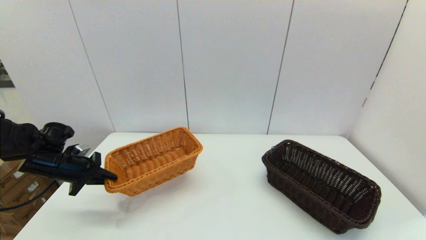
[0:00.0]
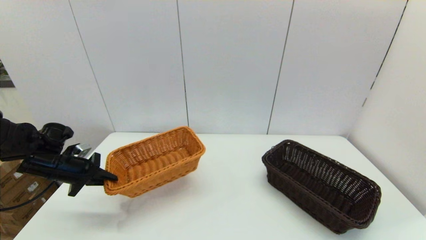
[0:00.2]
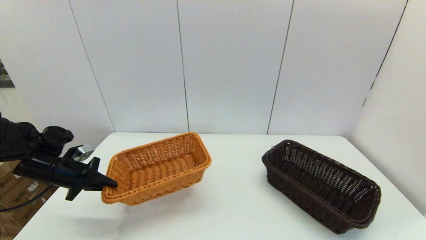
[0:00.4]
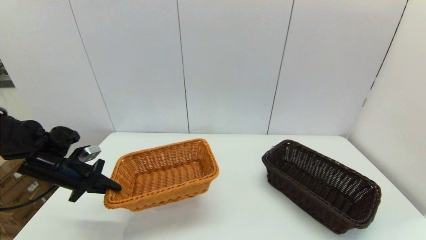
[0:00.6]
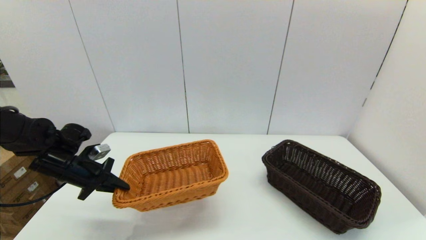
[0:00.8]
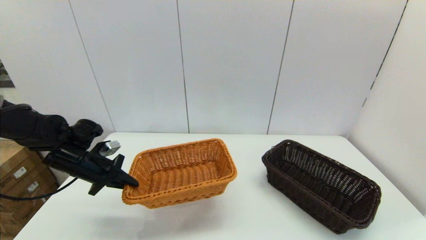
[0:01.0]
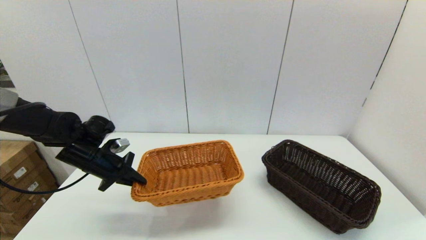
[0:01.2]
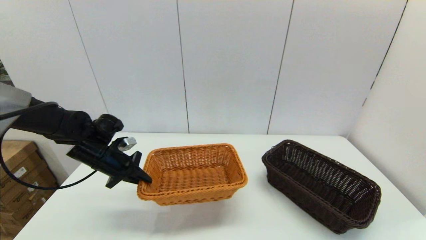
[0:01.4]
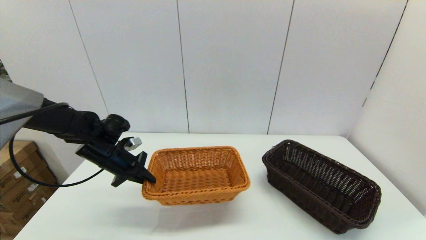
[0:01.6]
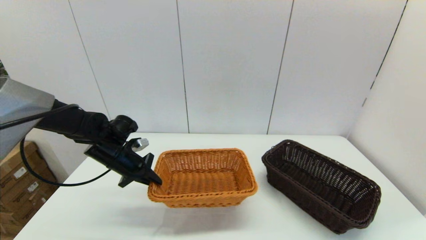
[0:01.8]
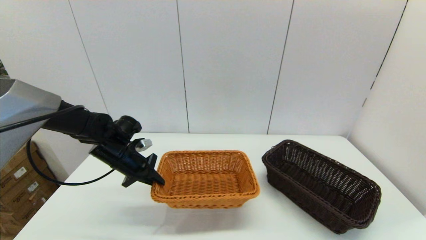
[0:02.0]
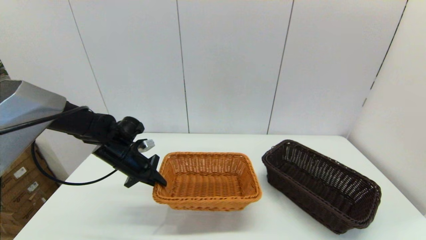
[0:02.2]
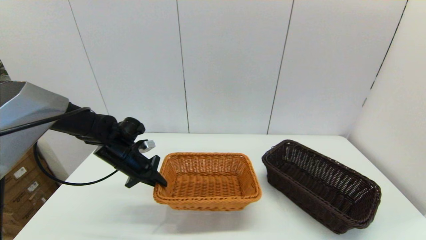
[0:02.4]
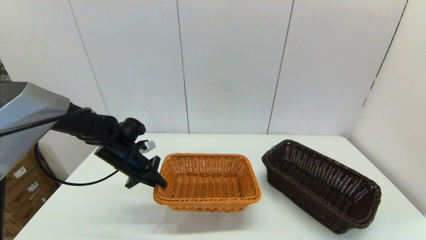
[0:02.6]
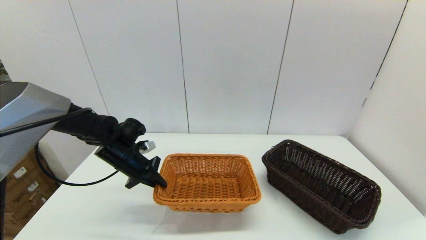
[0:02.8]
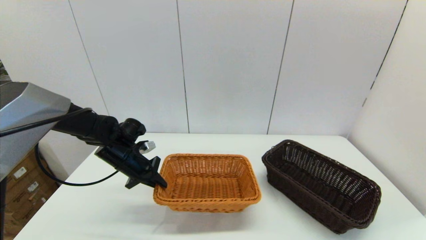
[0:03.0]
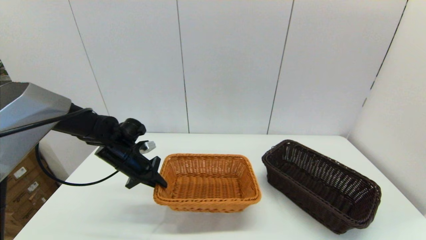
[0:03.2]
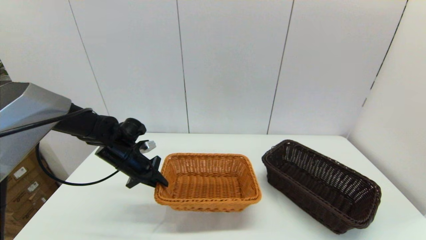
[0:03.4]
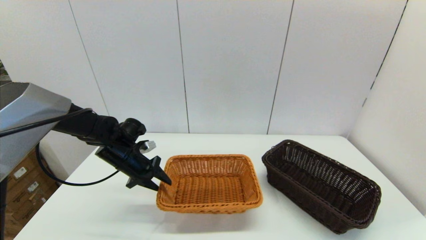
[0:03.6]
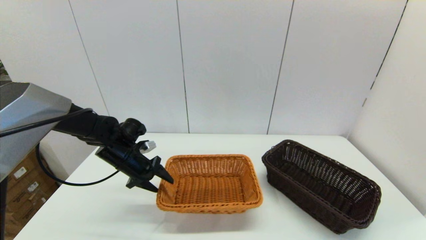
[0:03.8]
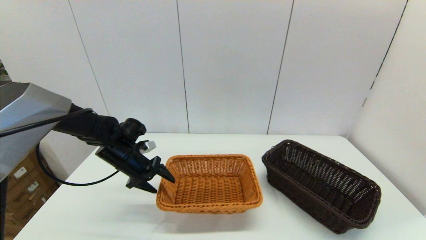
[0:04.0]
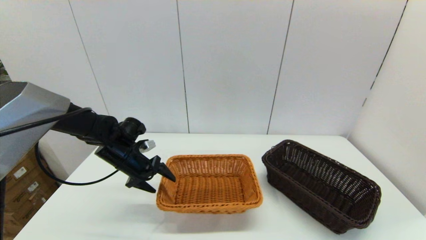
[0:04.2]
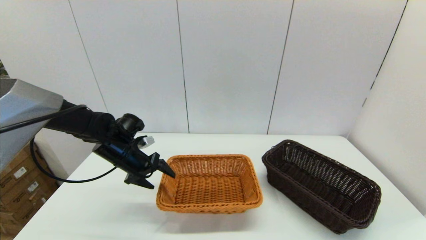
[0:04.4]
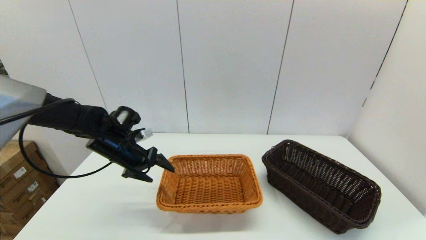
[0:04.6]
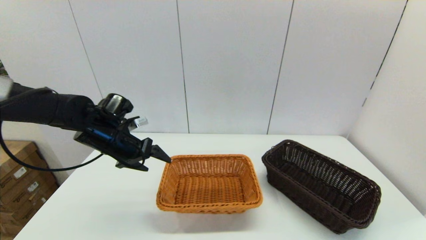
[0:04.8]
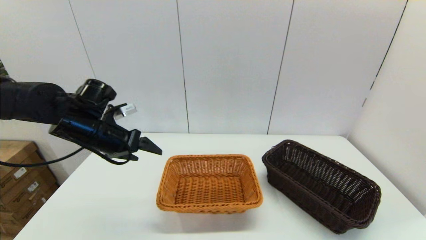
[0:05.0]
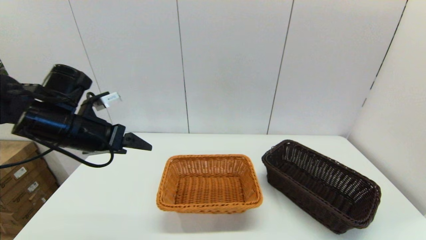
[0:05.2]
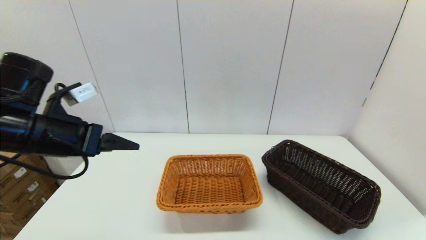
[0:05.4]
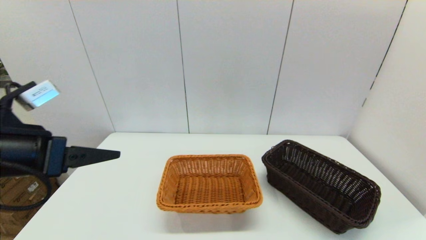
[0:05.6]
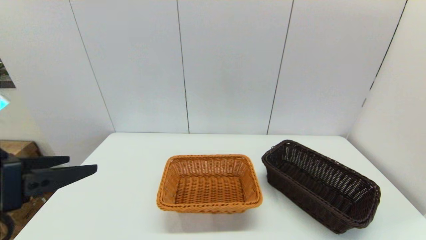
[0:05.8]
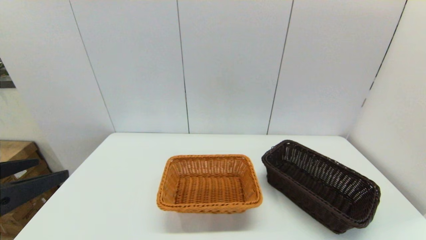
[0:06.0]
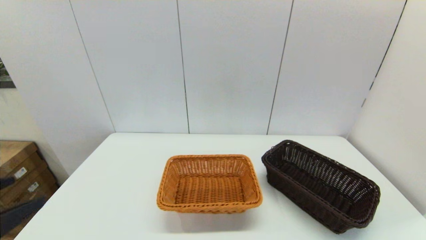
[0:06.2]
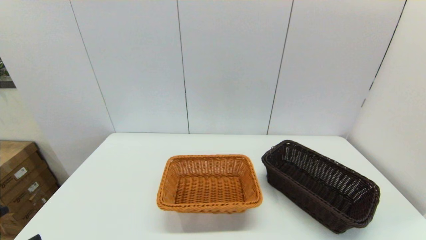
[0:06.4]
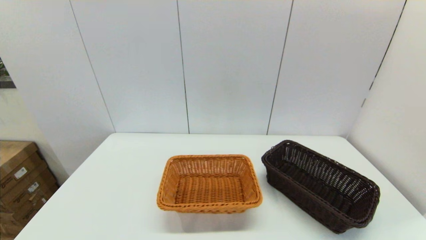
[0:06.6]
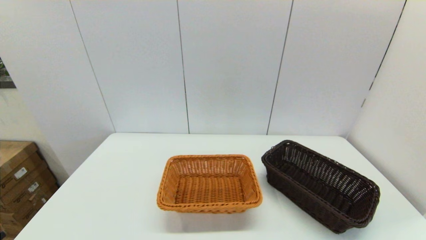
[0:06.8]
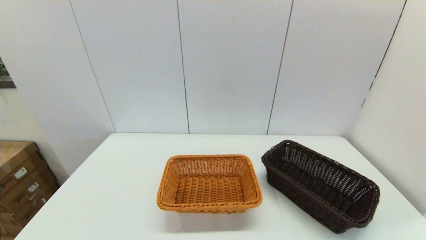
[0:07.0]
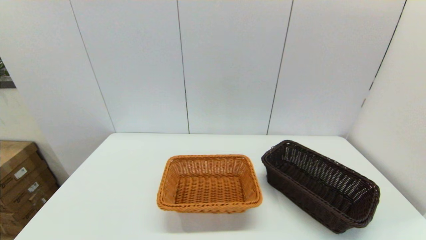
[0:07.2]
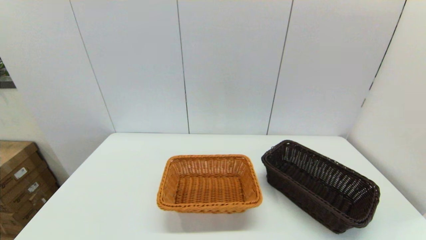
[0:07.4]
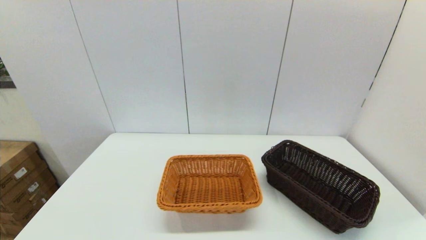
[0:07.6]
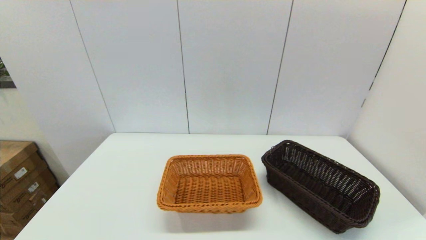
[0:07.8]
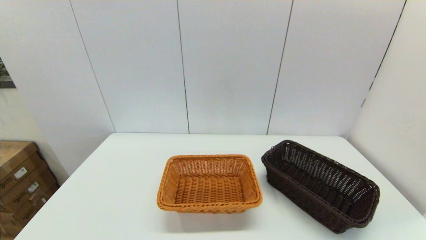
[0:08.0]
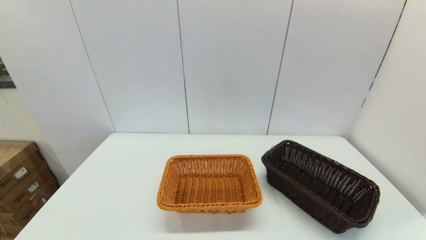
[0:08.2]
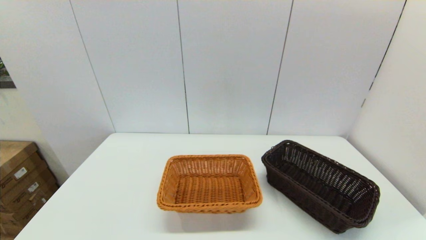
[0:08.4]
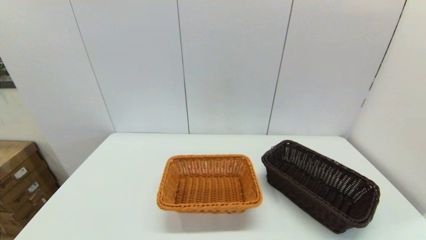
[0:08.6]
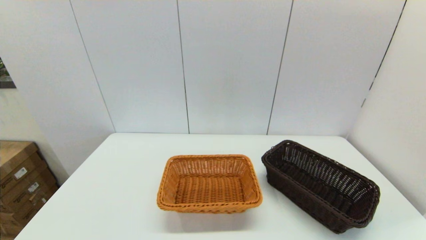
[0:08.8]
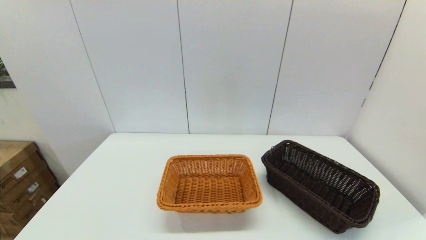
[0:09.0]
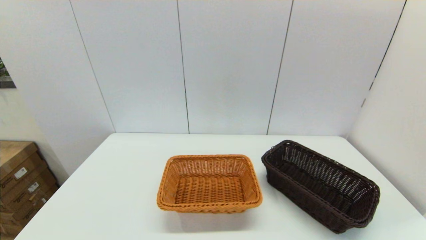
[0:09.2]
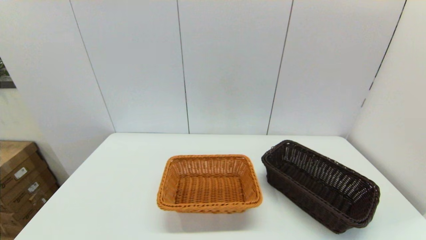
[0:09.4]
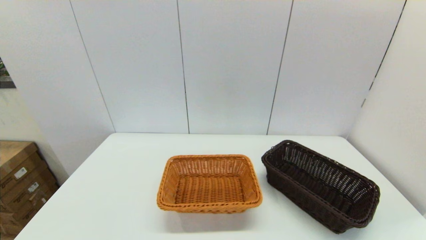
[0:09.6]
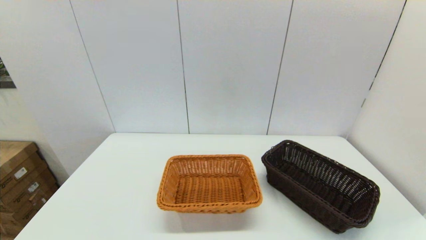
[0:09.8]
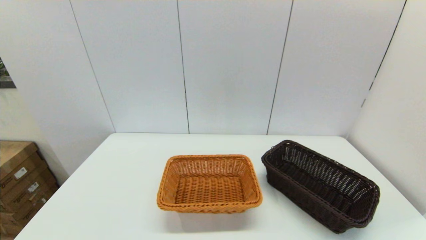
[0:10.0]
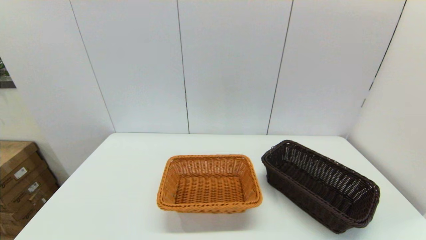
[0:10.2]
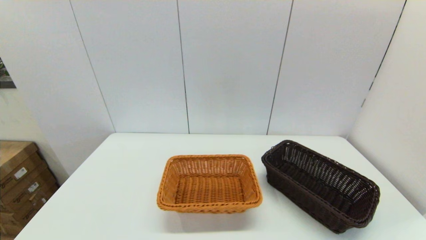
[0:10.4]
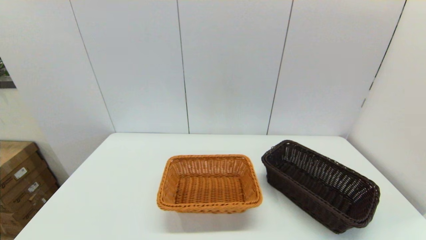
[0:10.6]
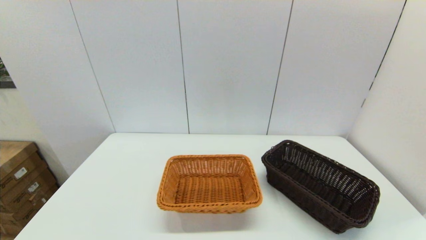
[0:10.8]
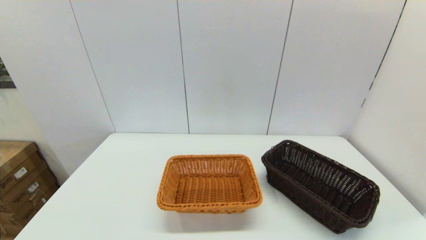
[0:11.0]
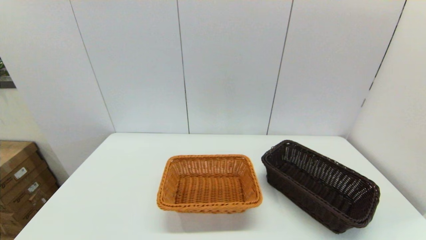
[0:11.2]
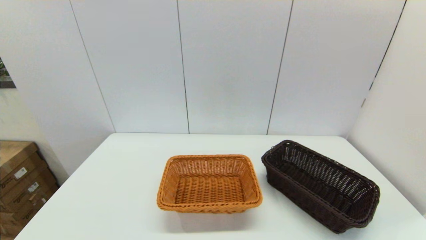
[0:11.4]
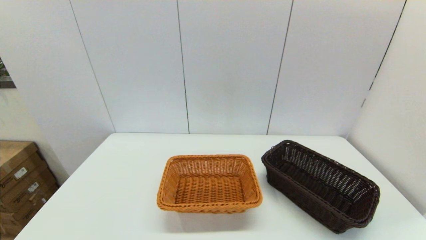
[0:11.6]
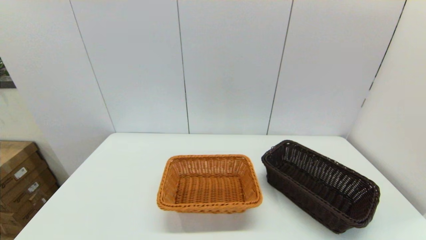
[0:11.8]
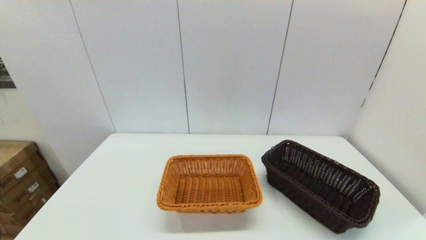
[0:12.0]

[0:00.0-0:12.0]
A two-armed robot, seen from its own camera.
Task of the whole recording: stack a basket on top of another basket.
Step, 0:00.0 to 0:05.6: Place the light basket on the middle of the table with the left gripper.
0:00.0 to 0:01.6: The left gripper is displaced to the right by about 10 cm.
0:01.6 to 0:03.0: There are only small adjustments of the grippers.
0:03.0 to 0:04.4: The left gripper opens.
0:04.4 to 0:06.0: The left gripper travels backward and upward by about 30 cm.
0:06.0 to 0:07.6: The left gripper heads downward and backward, covering roughly 20 cm.
0:07.6 to 0:09.0: The two grippers keep their place.
0:09.0 to 0:12.0: Neither gripper changes place.

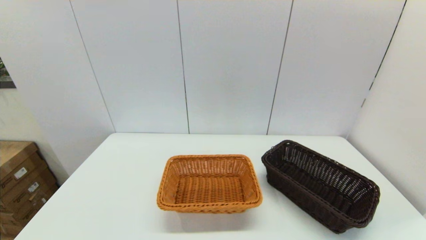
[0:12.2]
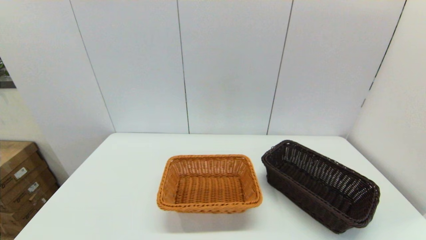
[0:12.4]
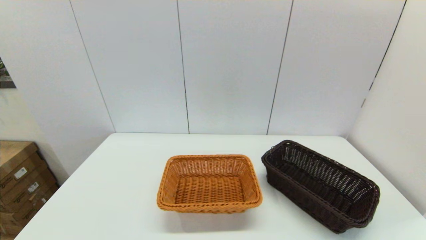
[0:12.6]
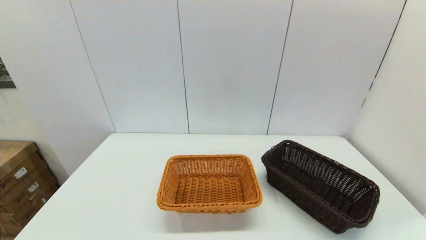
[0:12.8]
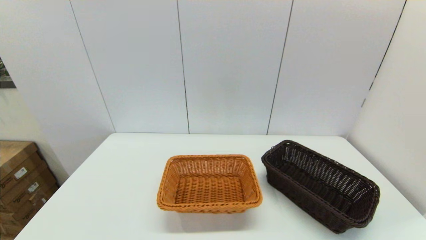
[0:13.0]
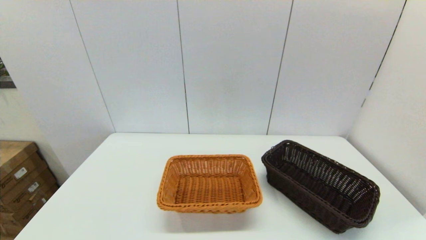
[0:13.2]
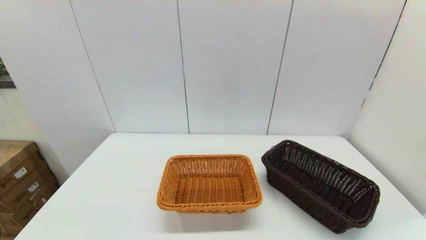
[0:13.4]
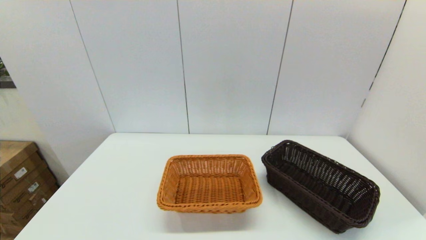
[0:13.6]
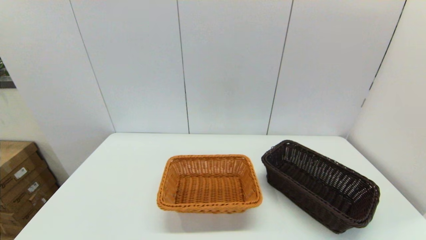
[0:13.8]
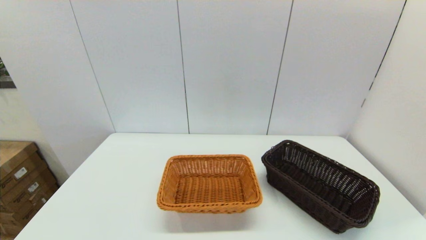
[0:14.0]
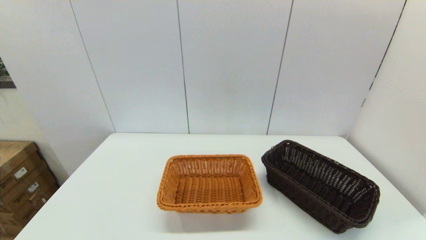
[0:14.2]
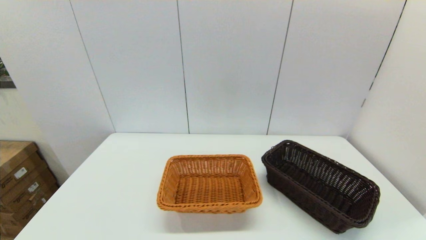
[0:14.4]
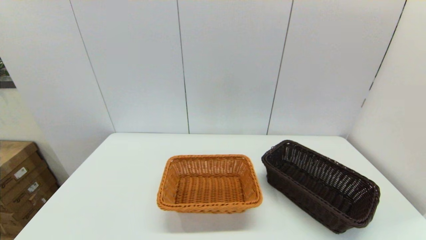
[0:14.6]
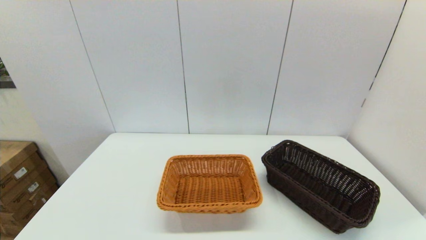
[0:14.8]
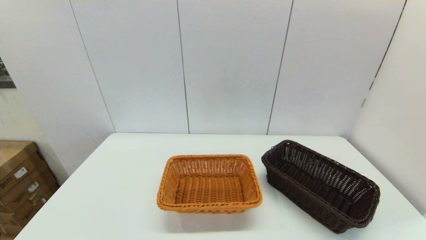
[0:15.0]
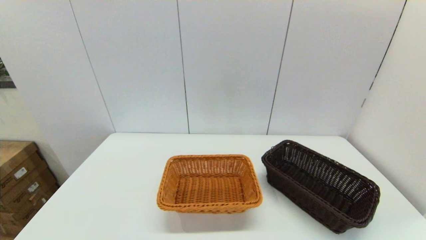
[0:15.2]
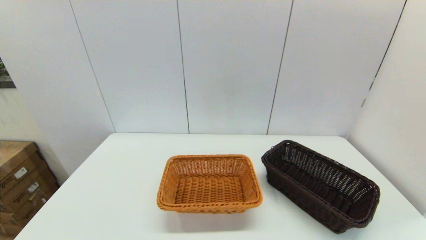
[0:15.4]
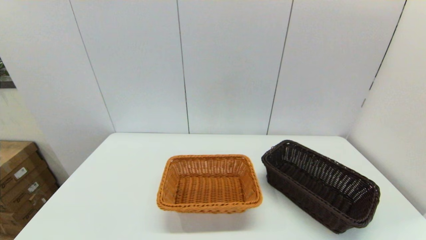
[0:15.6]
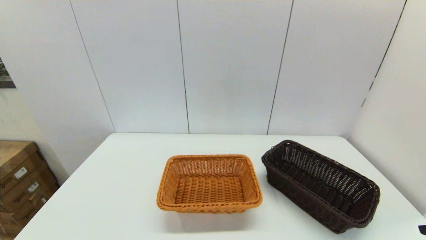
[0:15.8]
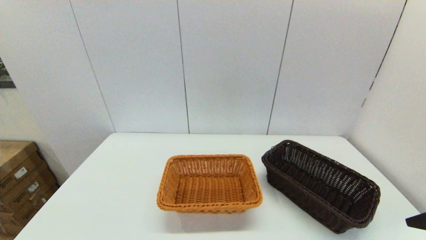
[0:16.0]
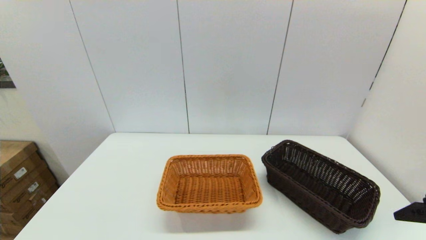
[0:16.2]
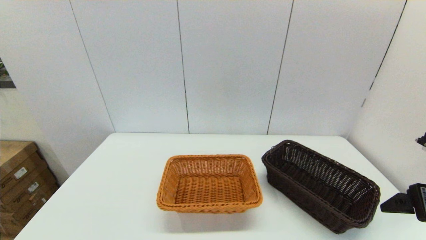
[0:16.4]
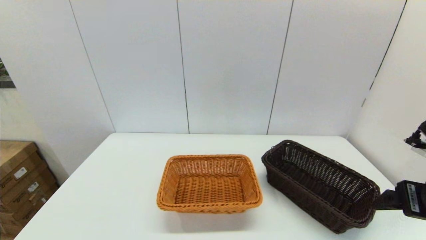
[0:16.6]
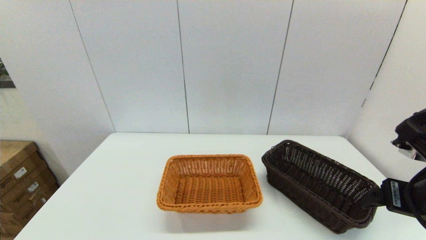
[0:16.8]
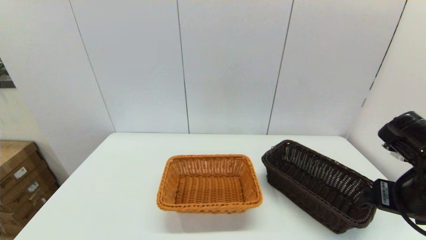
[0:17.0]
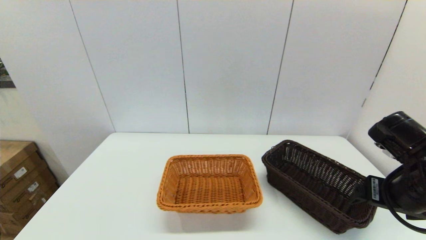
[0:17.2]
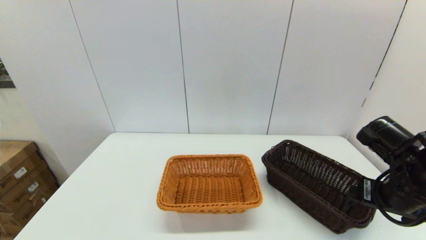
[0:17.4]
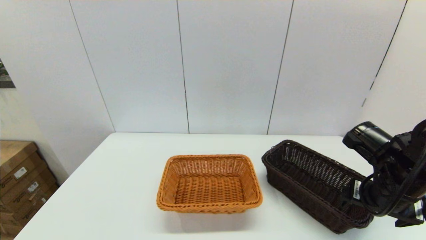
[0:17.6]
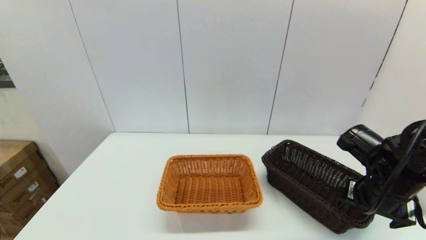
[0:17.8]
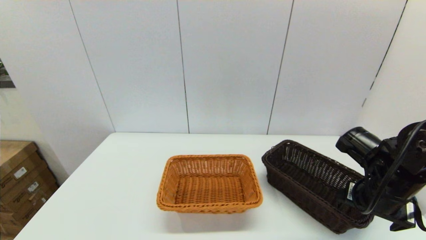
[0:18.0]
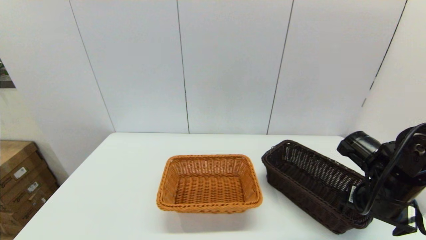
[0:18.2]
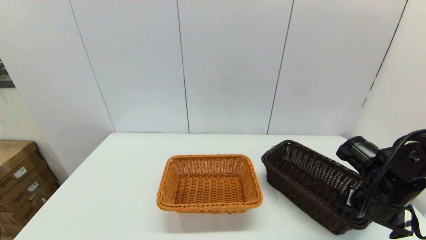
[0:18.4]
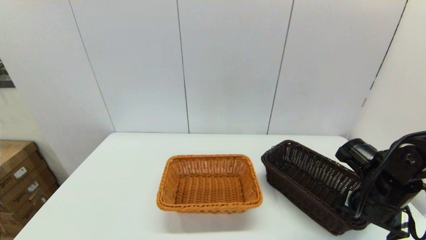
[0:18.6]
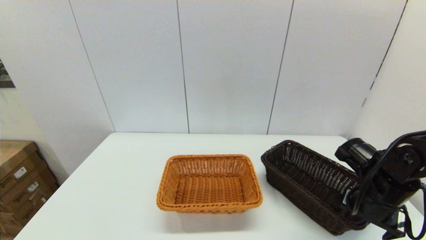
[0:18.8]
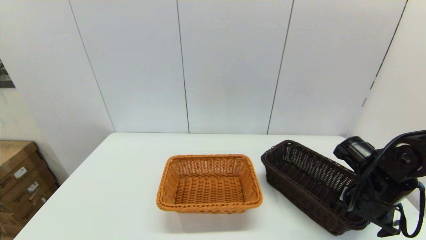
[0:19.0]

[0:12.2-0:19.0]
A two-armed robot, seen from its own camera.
Task of the whole recording: stack a basket on top of another basket.
0:16.2 to 0:17.6: The right gripper shifts approximately 10 cm forward and downward.
0:17.6 to 0:19.0: The right gripper travels downward by approximately 5 cm.
